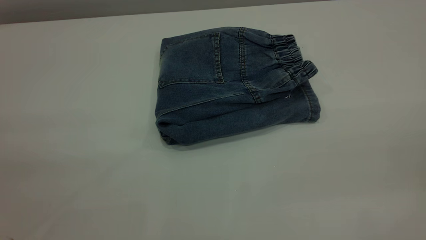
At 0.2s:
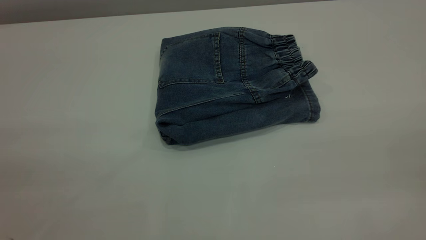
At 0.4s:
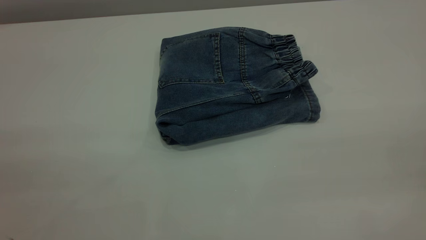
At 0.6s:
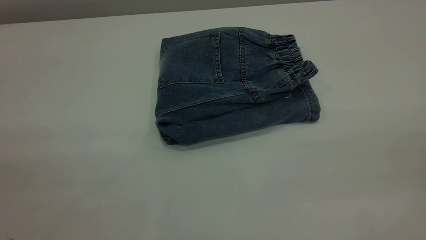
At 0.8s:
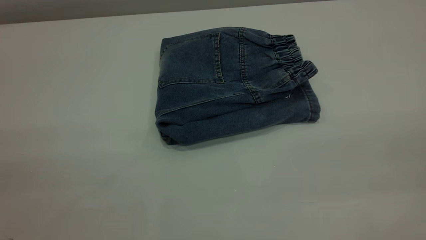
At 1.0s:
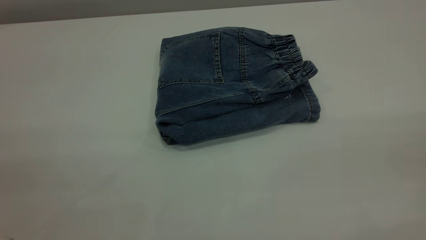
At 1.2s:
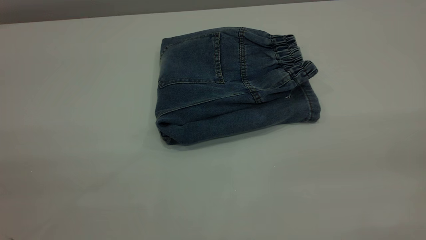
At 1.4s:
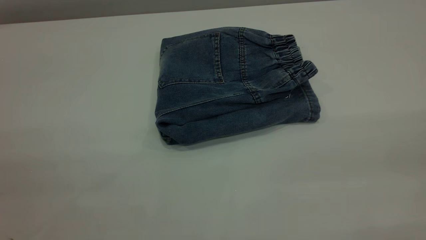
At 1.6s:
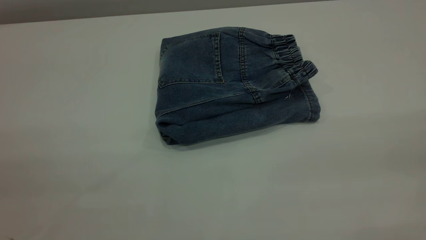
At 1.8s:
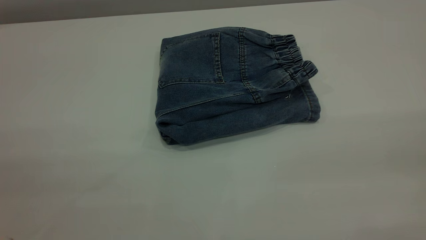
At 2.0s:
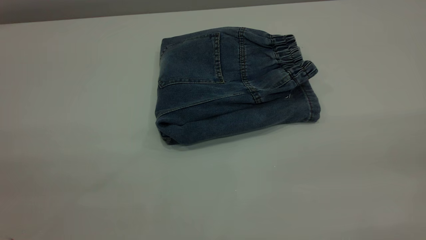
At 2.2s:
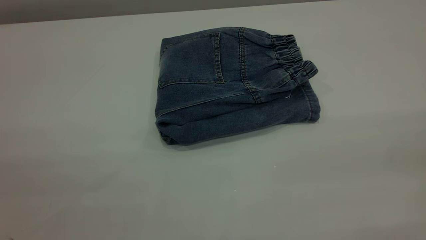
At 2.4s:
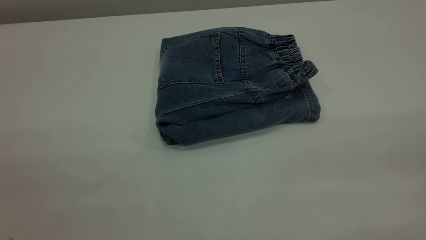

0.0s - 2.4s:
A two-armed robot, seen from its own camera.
1.2s - 2.4s: Both grippers stay put.
